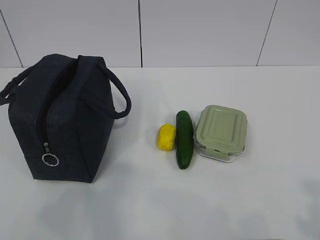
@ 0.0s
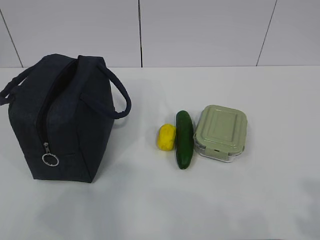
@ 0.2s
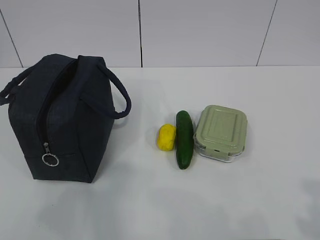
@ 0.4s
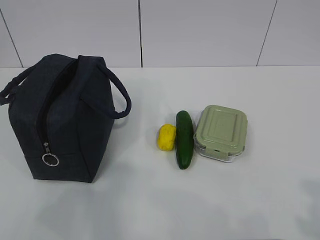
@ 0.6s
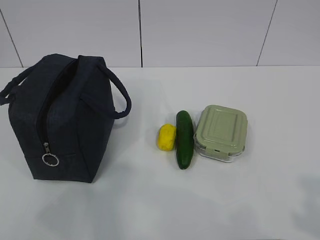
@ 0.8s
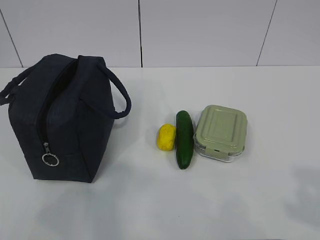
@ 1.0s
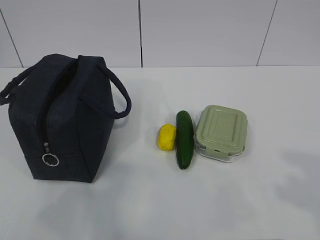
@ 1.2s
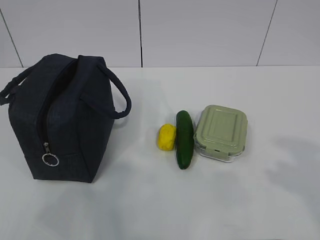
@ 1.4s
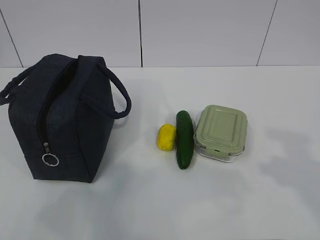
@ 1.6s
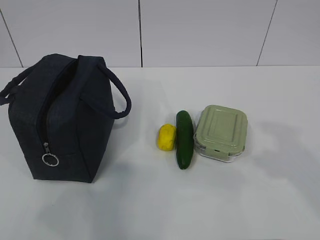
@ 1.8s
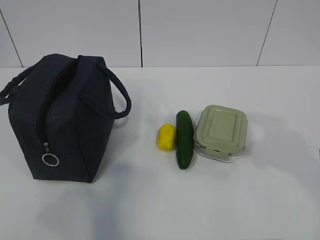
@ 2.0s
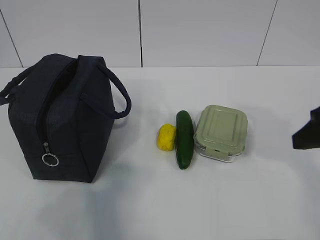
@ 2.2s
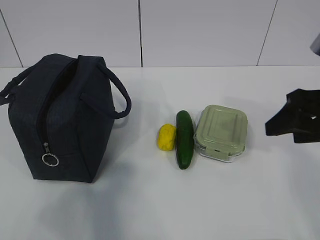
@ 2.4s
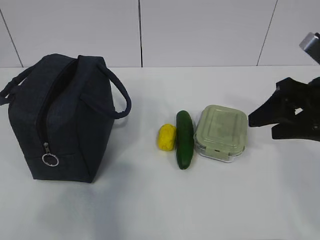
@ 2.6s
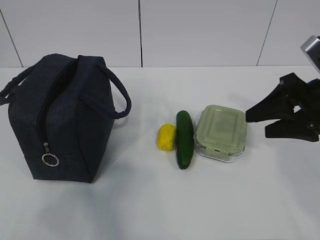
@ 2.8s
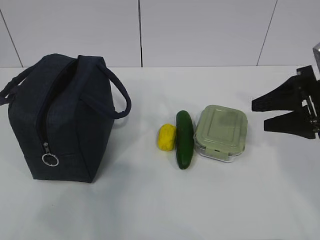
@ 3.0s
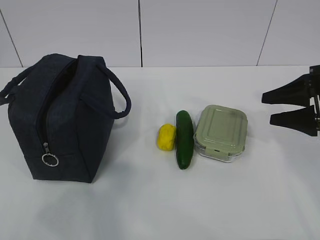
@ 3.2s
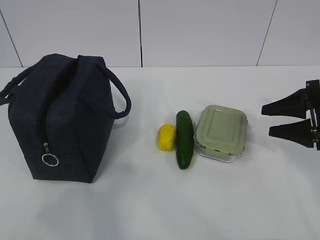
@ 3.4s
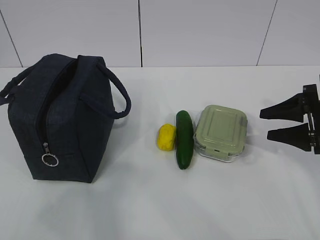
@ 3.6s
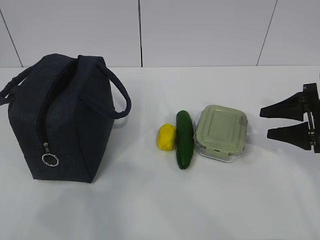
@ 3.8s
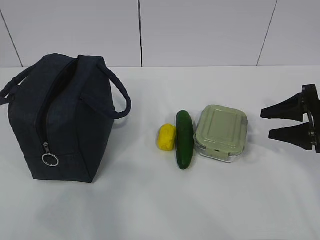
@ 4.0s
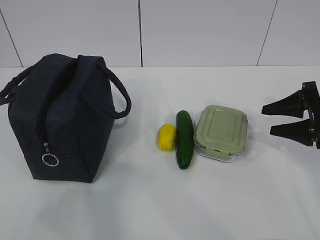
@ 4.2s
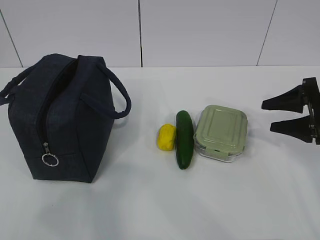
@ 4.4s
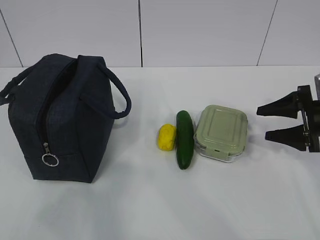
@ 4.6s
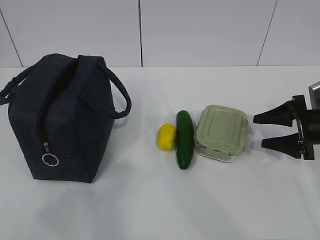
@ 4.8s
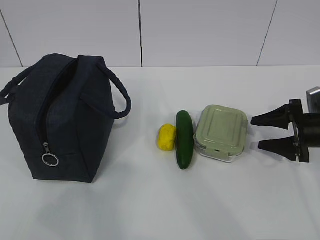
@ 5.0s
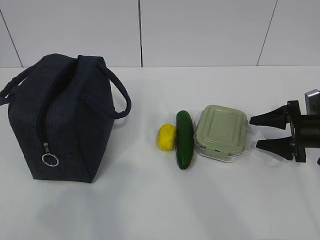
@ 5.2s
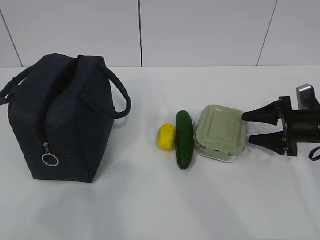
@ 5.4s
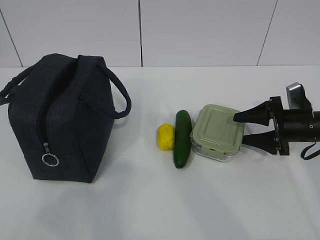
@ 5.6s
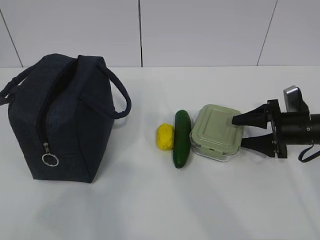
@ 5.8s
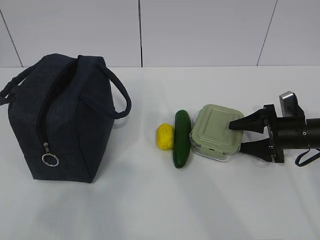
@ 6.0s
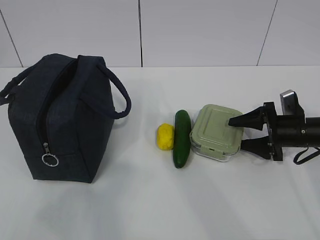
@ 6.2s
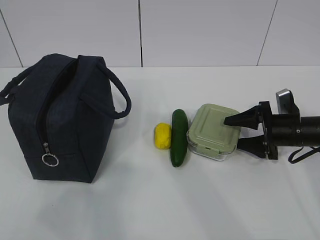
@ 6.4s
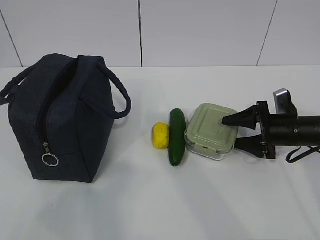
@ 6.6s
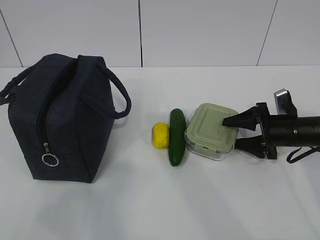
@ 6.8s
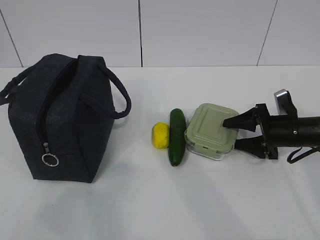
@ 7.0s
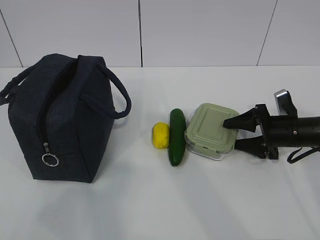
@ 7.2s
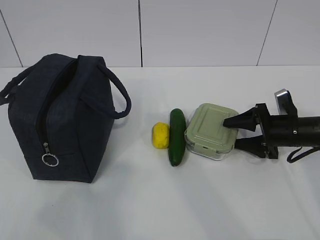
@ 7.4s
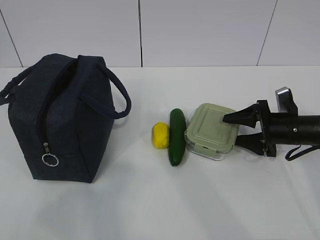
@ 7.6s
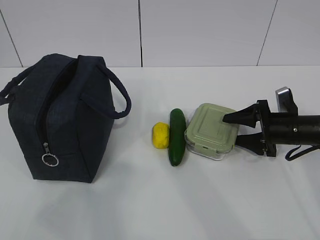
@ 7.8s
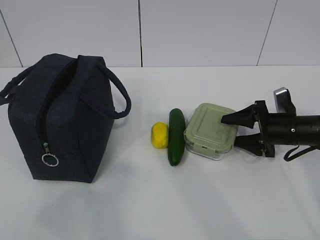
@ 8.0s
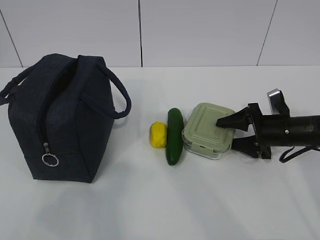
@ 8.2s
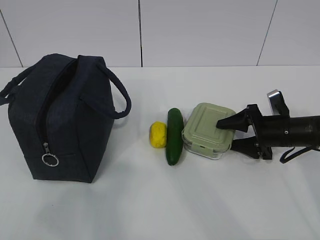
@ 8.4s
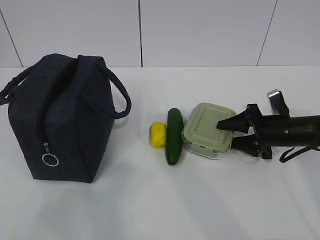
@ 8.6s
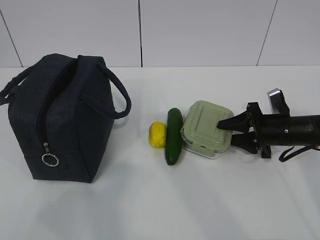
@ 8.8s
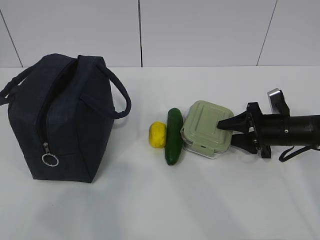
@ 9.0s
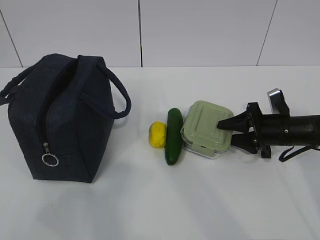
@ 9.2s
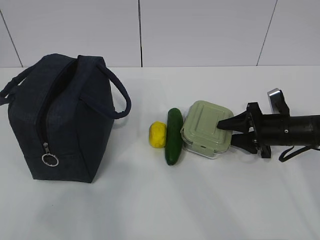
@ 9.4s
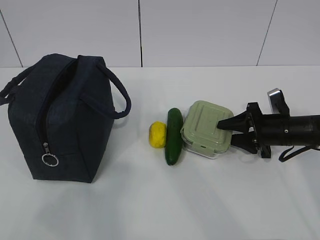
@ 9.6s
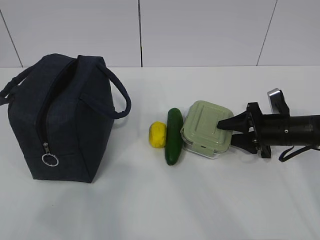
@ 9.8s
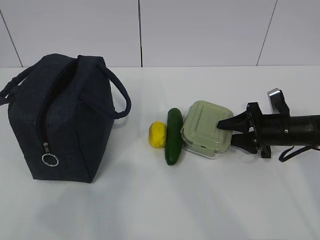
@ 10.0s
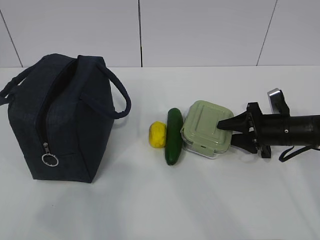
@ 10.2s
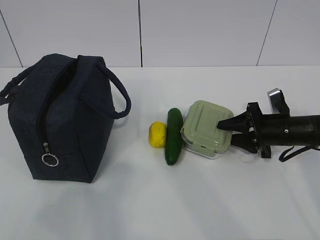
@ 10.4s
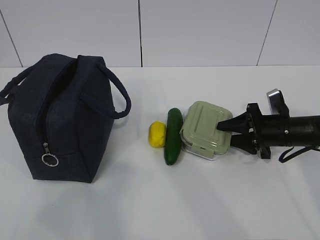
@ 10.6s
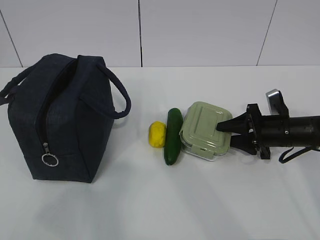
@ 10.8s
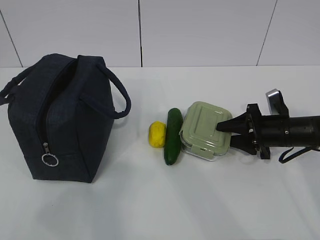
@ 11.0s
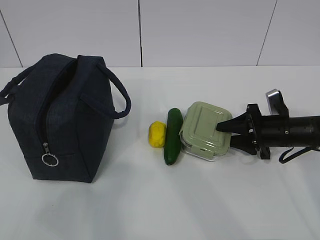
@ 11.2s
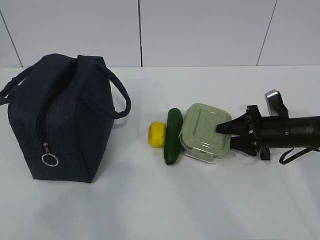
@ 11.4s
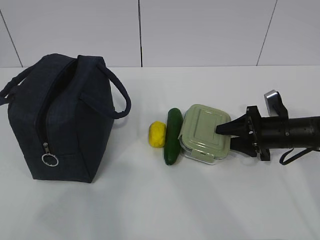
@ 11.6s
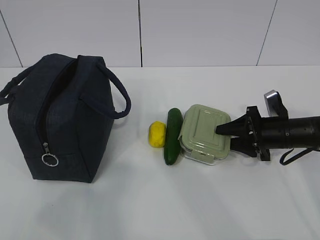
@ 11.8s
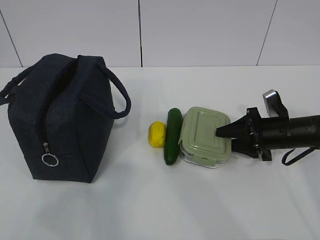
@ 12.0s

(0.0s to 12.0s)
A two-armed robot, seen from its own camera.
Step, 0.0s - 9.8s: Grab the lunch box with your right hand.
1.6s - 3.0s: The right gripper shifts about 20 cm forward.
3.0s - 4.4s: The right gripper goes about 10 cm downward and to the right.
4.4s - 6.0s: The right gripper heads downward, covering approximately 10 cm.
6.0s - 9.0s: The grippers move only a little.
9.0s - 10.4s: The two grippers keep their place.
10.4s - 12.0s: The grippers stay close to where they were, moving slightly.

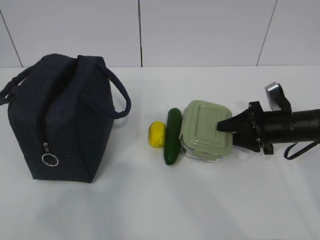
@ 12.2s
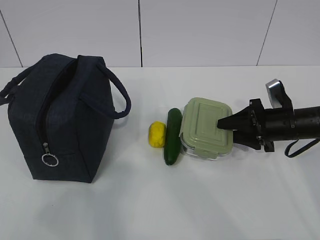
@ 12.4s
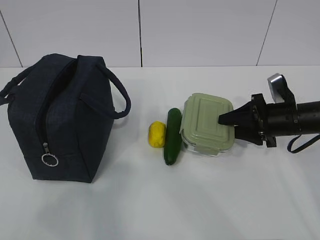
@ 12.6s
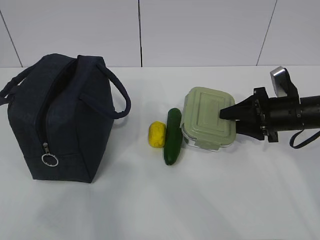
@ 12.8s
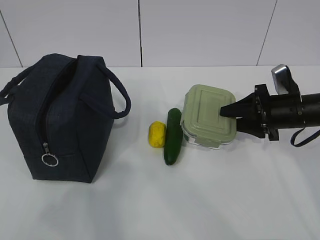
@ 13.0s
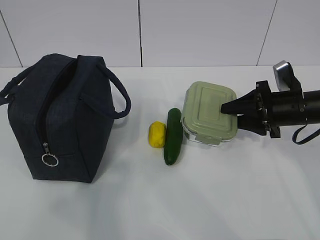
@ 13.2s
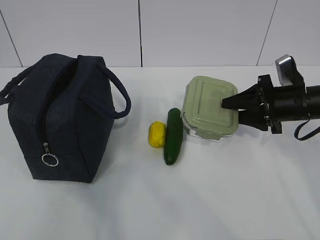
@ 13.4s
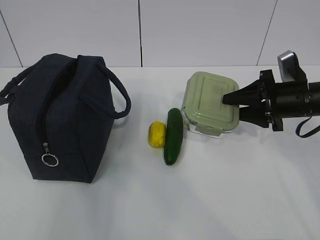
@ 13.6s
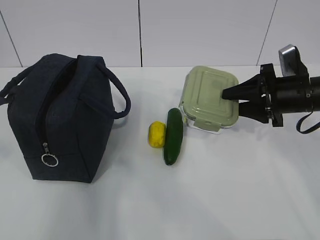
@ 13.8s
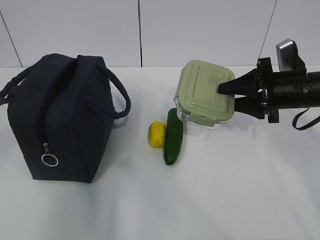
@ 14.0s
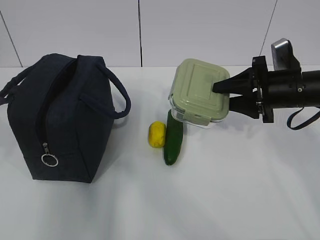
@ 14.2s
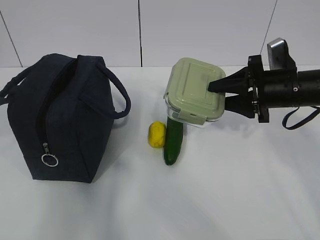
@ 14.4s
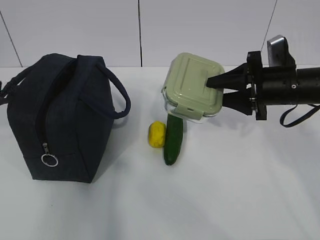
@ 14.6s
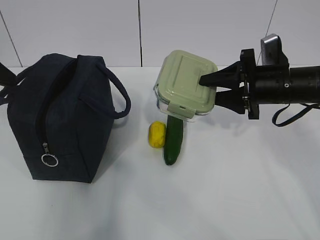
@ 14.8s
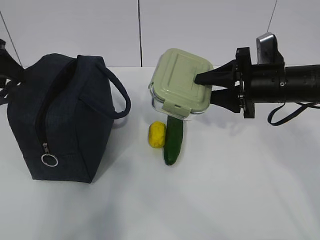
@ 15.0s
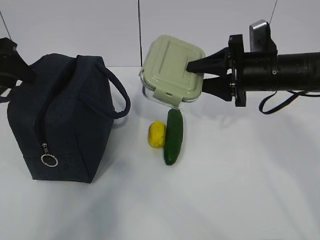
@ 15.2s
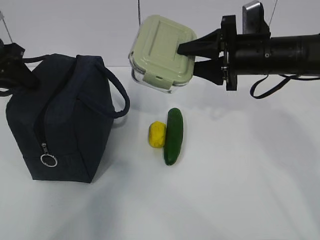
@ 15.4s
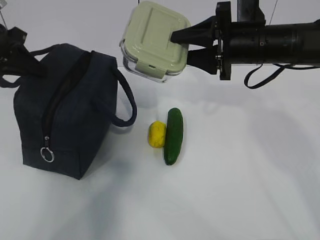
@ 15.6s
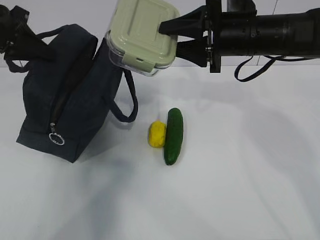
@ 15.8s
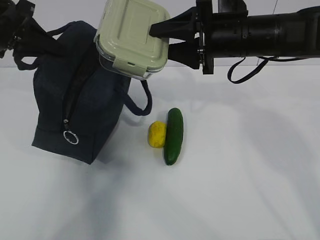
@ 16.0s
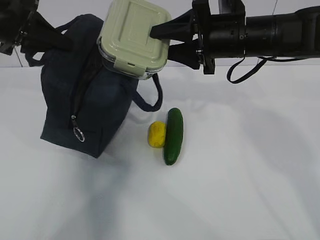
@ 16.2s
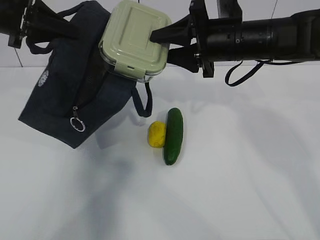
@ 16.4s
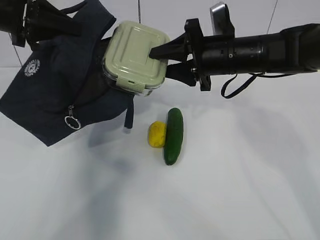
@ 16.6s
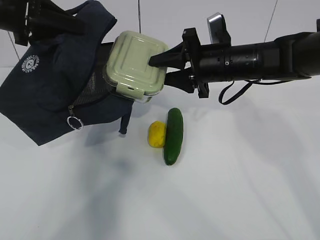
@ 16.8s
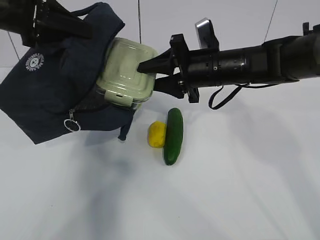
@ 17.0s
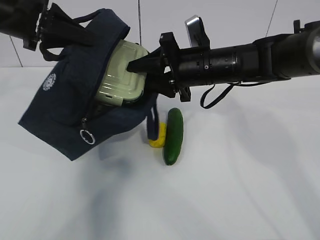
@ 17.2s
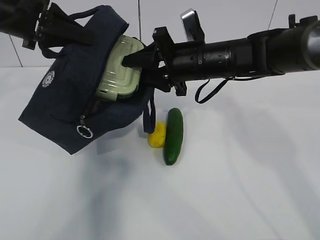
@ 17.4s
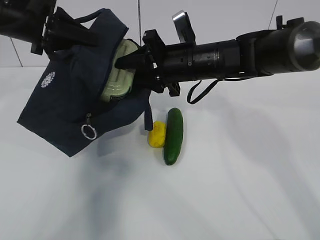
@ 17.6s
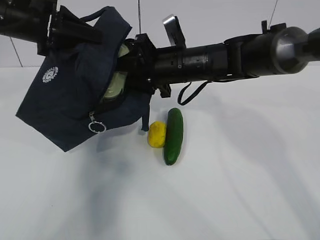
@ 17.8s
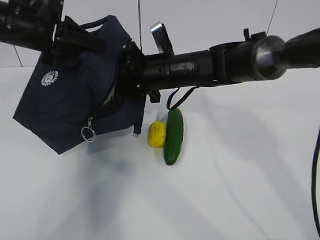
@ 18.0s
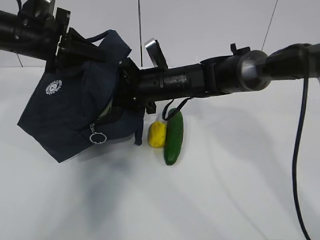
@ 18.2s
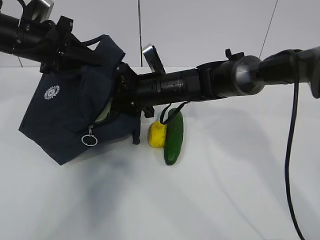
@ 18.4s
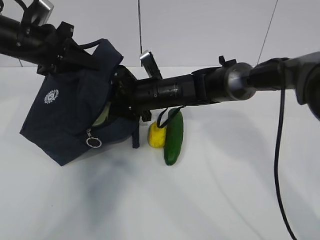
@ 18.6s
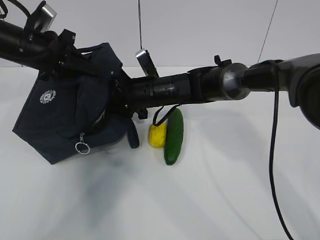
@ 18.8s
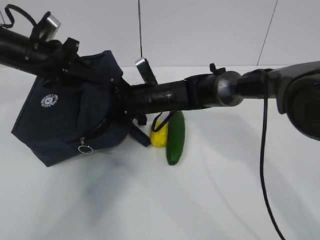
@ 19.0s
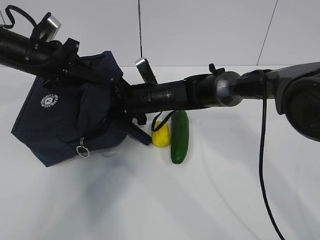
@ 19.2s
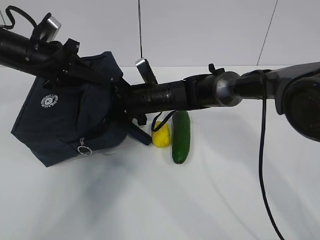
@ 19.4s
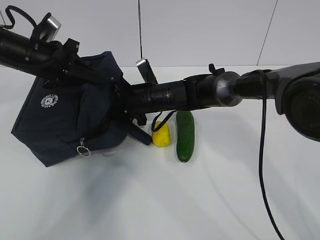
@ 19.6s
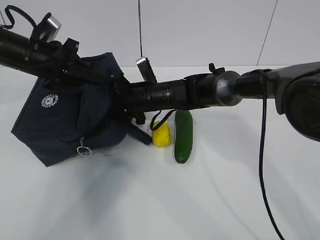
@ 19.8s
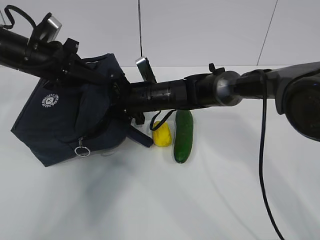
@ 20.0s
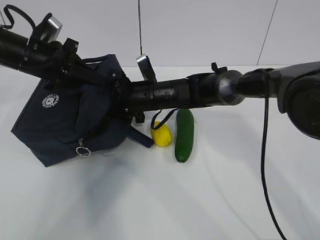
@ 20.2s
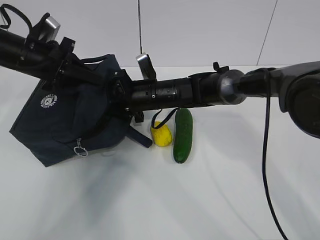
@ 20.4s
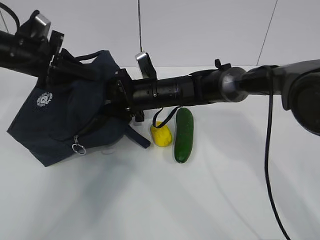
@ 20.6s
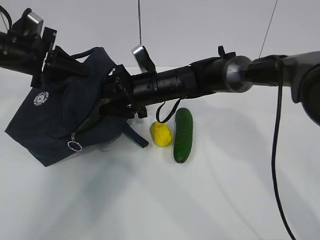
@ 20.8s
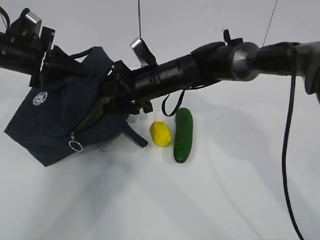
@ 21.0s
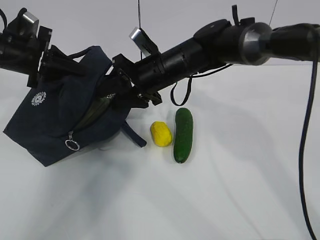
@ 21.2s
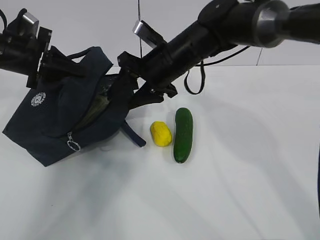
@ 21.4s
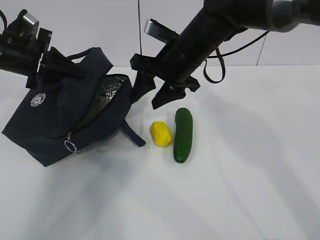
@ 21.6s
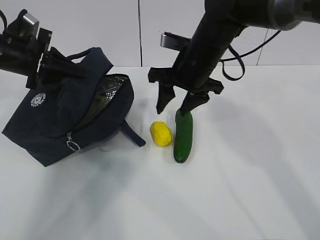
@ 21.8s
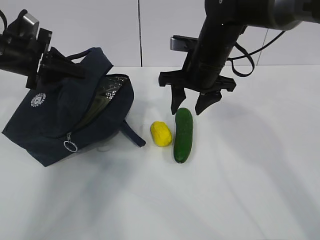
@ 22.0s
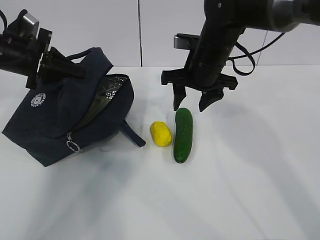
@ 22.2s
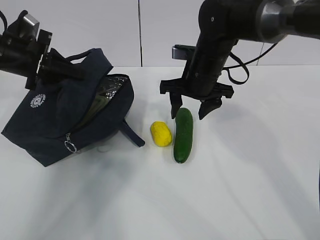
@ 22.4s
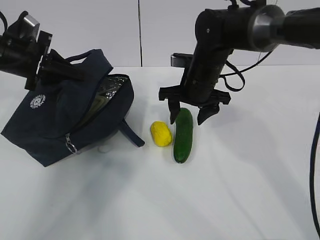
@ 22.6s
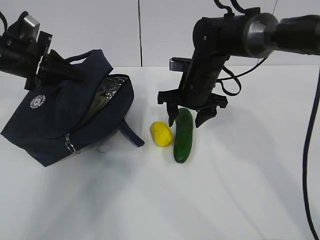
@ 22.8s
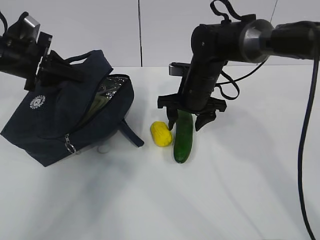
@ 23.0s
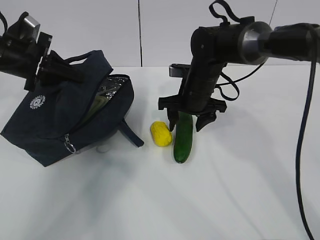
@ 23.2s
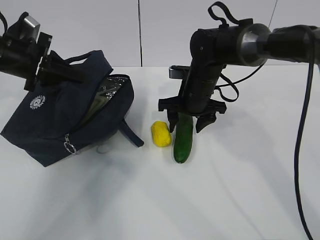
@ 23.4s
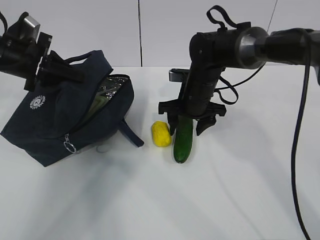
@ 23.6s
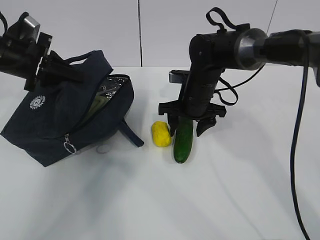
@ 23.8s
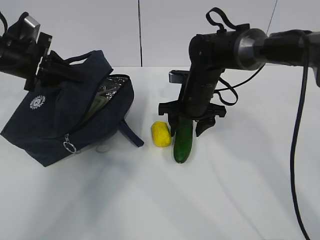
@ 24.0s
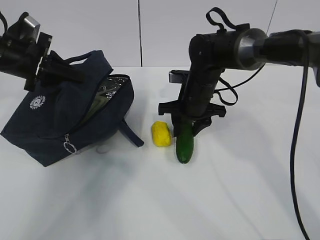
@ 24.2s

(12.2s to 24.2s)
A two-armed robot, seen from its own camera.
Step, 13.8s - 16.4s: Place it into the bag with your right hand.
Step, 16.8s - 20.2s: Grab the cucumber with your right hand.
Step, 20.6s - 22.4s: Place it into the bag with your right hand.
12.2s - 13.8s: The right gripper travels upward by roughly 10 cm. Meanwhile the left gripper heads forward and upward, covering roughly 10 cm, and opens its fingers.
13.8s - 15.2s: The left gripper goes roughly 25 cm forward. The right gripper goes approximately 5 cm to the left.
15.2s - 16.6s: The right gripper shifts roughly 5 cm to the left. The left gripper goes roughly 5 cm to the right, and closes up.
16.6s - 18.2s: The right gripper is displaced to the left and downward by roughly 15 cm; the left gripper shifts approximately 5 cm downward.
18.2s - 19.8s: The right gripper ends up about 5 cm from where it was.
19.8s - 21.2s: The right gripper moves upward, approximately 5 cm.
21.2s - 22.6s: The right gripper heads to the right, covering roughly 5 cm.
22.6s - 24.2s: The grippers stay close to where they were, moving slightly.
